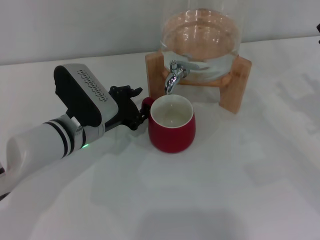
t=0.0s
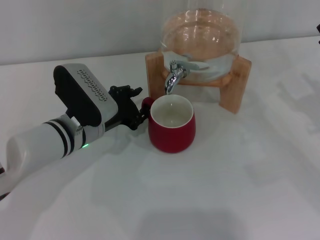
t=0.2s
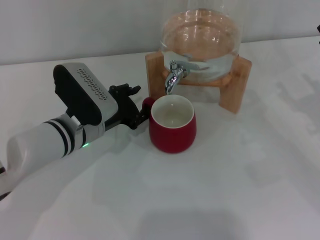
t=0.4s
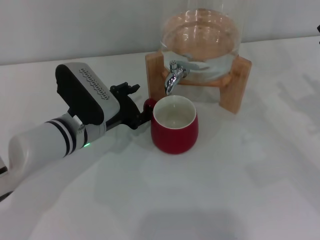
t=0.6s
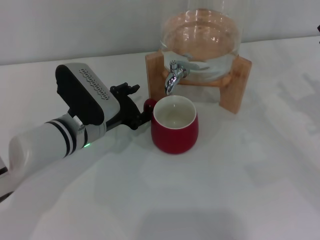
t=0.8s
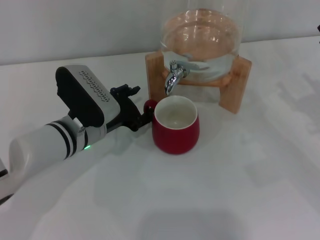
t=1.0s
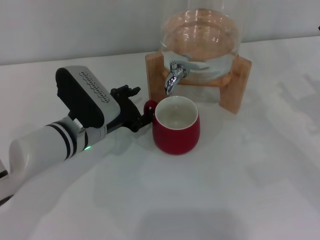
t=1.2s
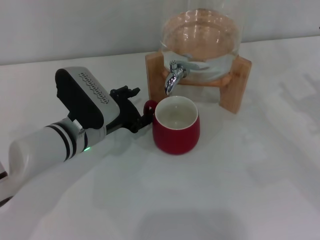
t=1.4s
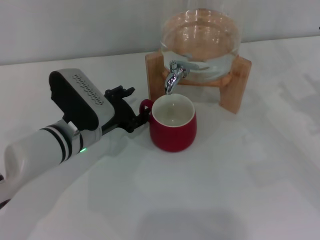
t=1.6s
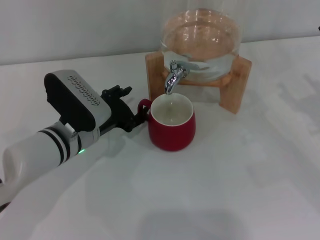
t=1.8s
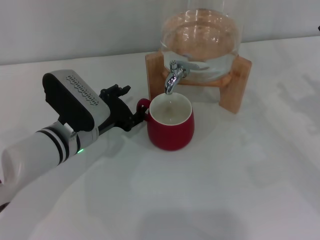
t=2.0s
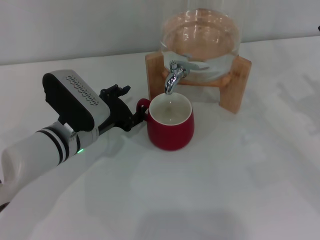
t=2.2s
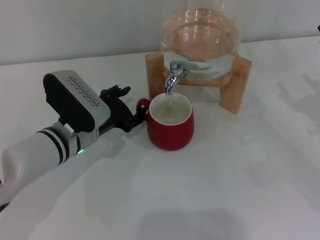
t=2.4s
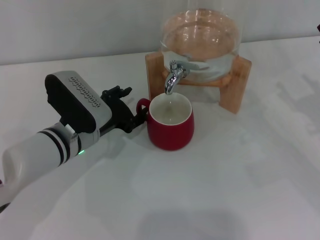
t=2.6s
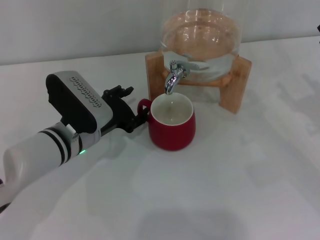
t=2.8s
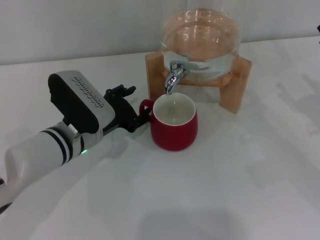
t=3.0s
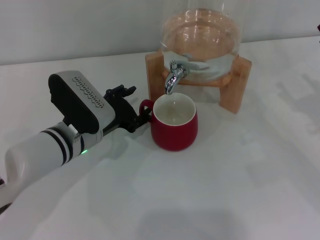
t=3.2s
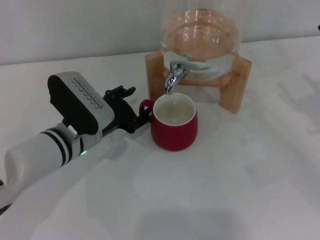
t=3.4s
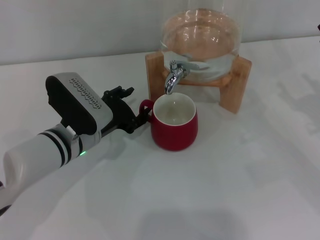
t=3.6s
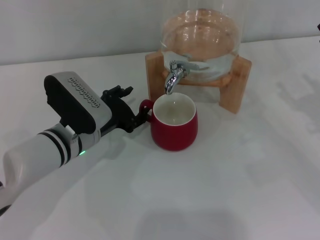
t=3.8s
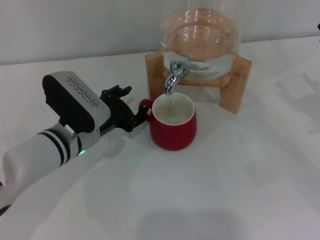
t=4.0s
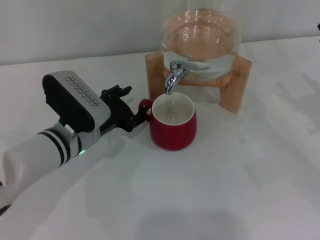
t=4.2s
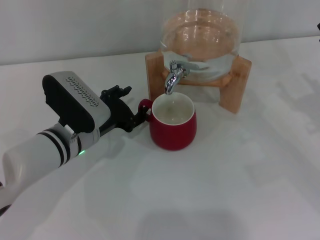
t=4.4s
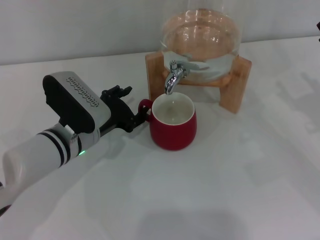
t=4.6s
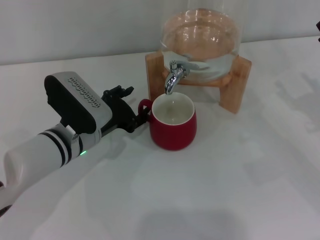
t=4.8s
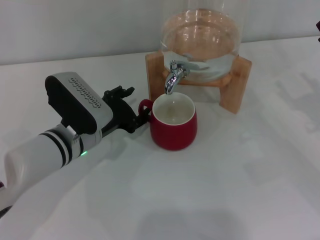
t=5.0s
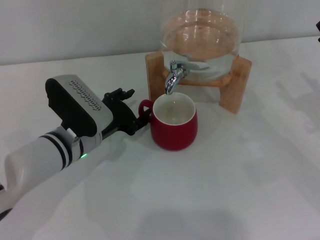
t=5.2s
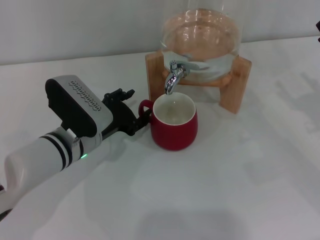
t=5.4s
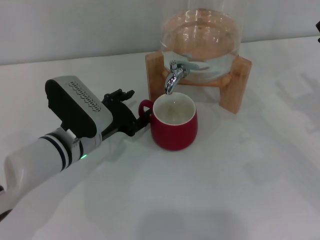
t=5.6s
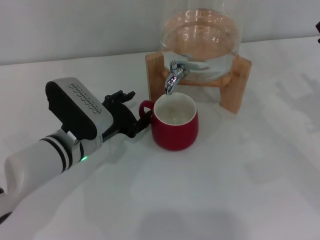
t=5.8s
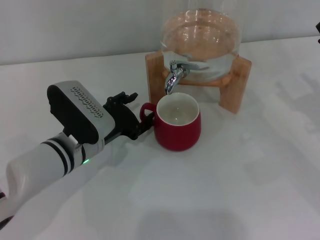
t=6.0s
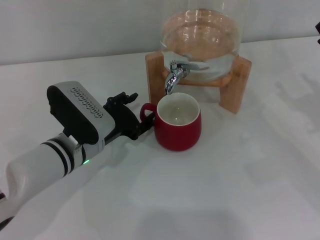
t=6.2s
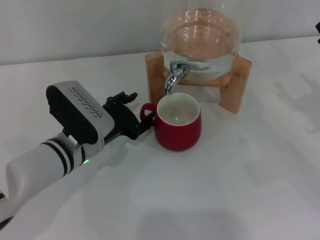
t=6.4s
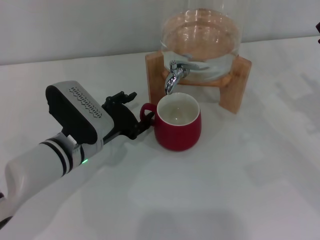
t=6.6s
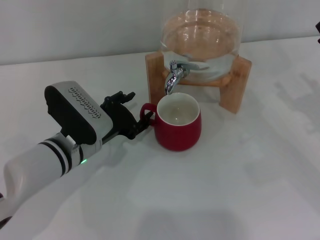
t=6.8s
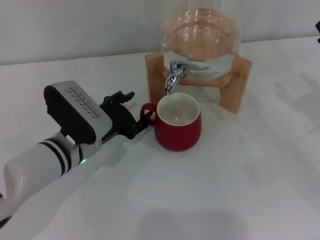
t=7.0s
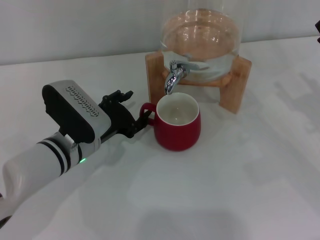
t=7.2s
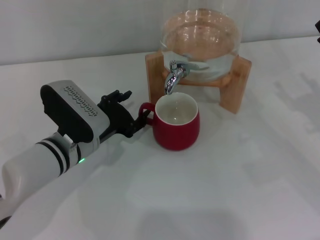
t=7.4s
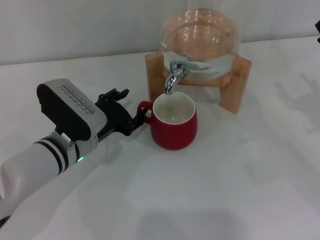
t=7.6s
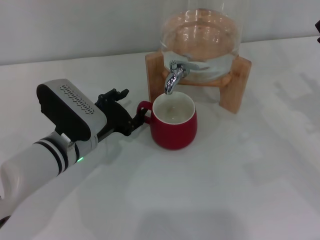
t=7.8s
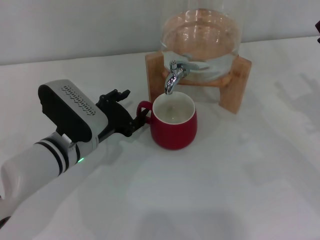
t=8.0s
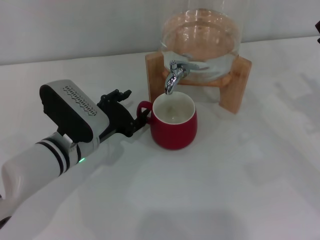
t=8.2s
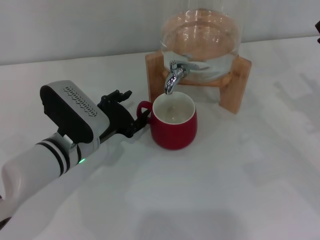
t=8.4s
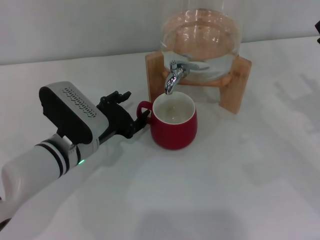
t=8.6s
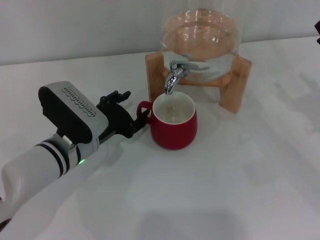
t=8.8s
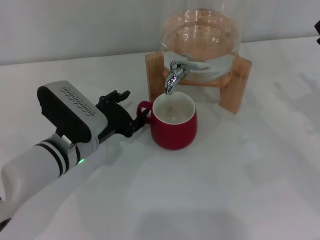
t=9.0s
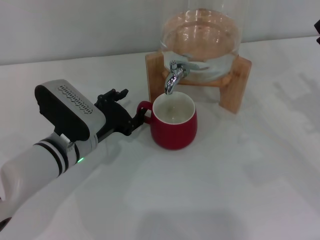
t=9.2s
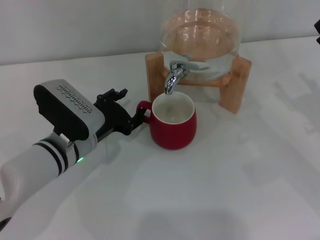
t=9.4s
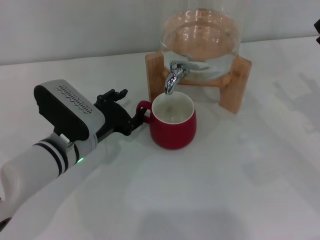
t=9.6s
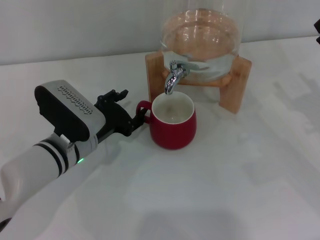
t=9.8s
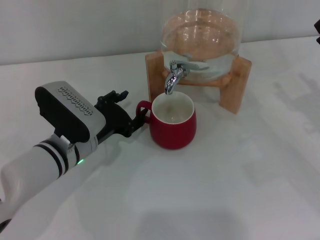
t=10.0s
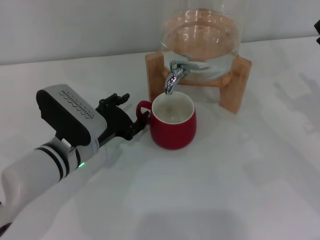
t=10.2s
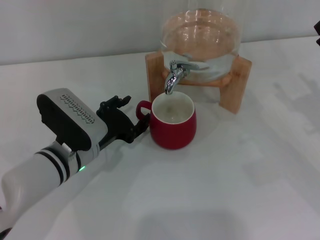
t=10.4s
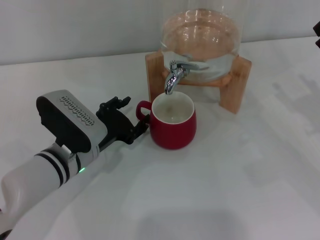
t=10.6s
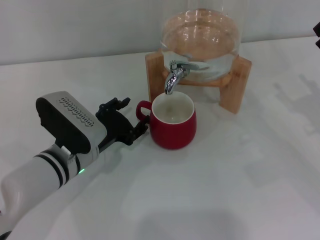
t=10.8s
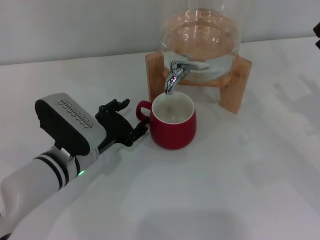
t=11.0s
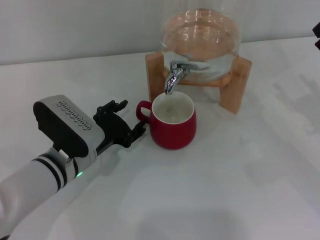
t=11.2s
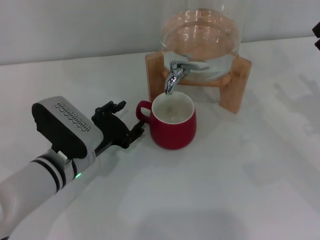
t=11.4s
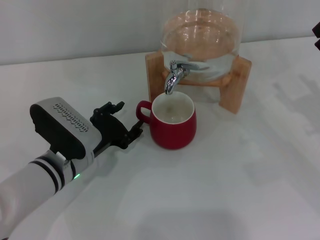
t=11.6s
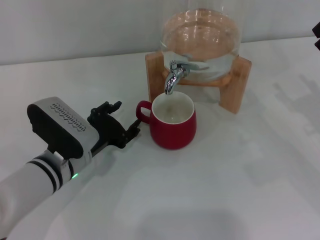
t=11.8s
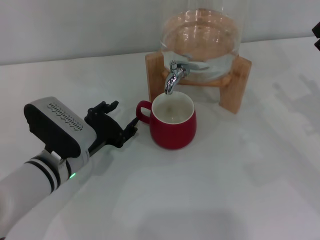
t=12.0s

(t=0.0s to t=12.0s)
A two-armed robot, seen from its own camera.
Task of the whole recording: the left gripper pick up the red cup and place it horizontally under the faucet, the right gripper turn on the faucet to fill the cup, and then turn off the faucet.
t=0.0s - t=3.0s: Both grippers stay about where they are.
t=3.0s - t=4.4s: Both grippers stay put.
t=4.4s - t=6.0s: The grippers stay close to where they were, moving slightly.
t=6.0s - t=9.0s: The two grippers keep their place.
t=9.0s - t=10.4s: Both grippers stay put.
t=10.4s - t=12.0s: The grippers stay close to where they were, moving slightly.

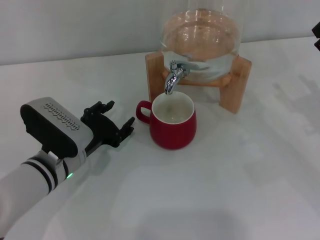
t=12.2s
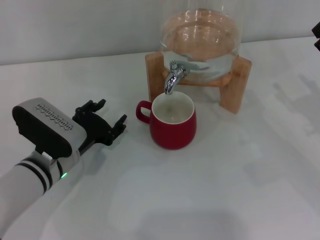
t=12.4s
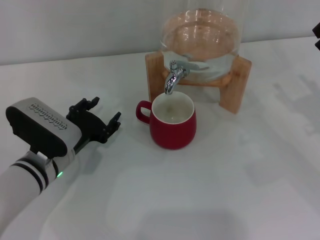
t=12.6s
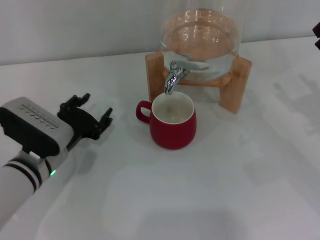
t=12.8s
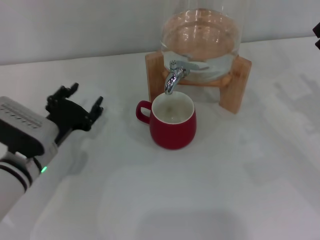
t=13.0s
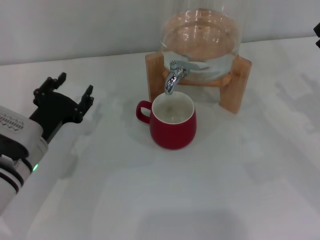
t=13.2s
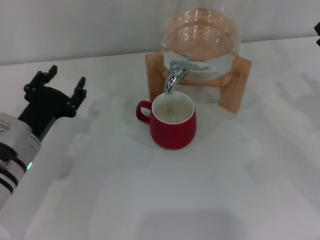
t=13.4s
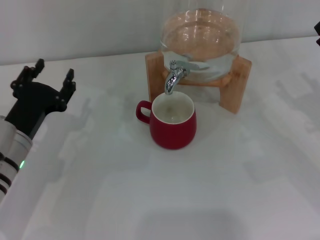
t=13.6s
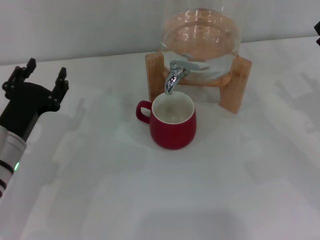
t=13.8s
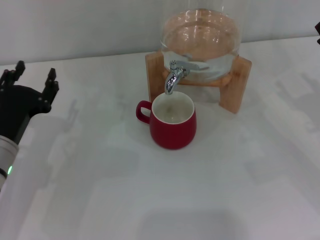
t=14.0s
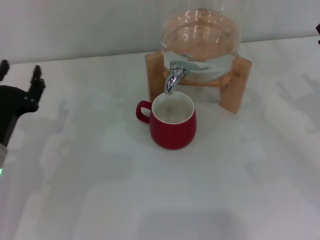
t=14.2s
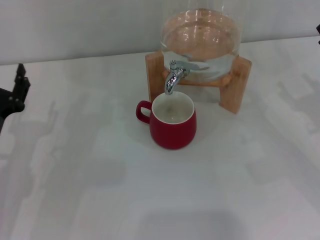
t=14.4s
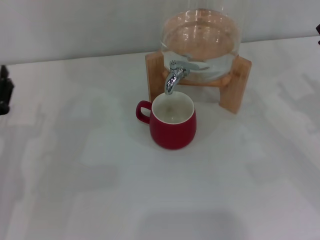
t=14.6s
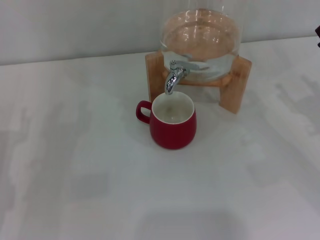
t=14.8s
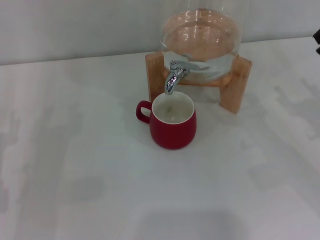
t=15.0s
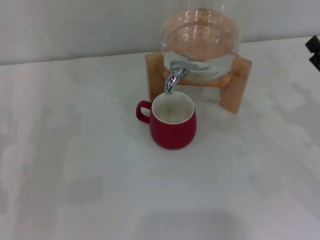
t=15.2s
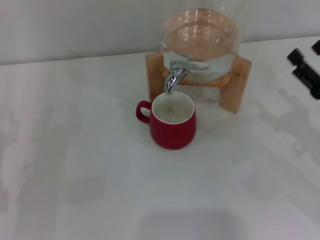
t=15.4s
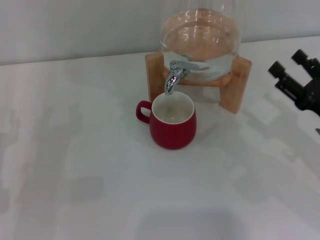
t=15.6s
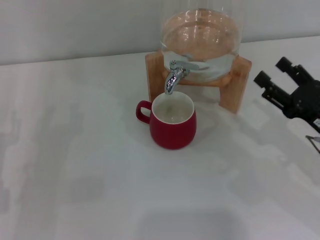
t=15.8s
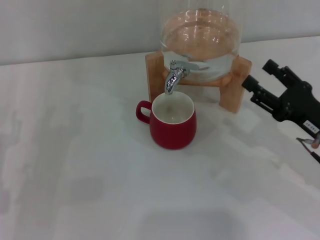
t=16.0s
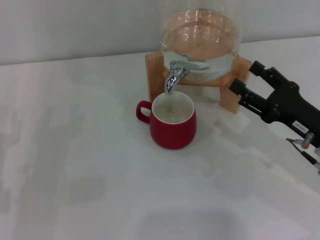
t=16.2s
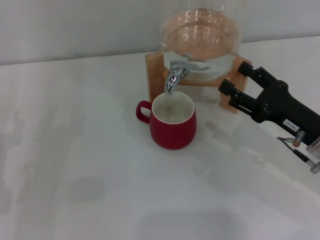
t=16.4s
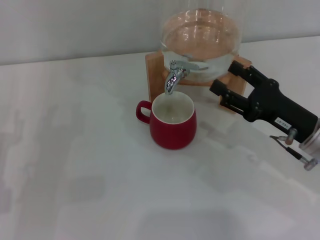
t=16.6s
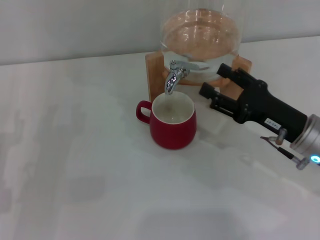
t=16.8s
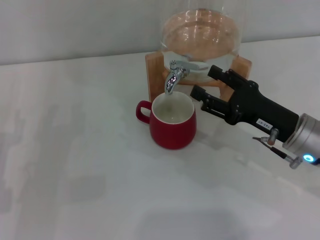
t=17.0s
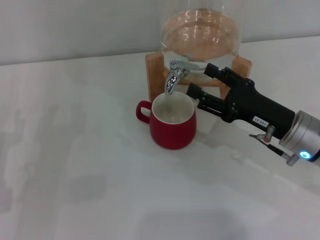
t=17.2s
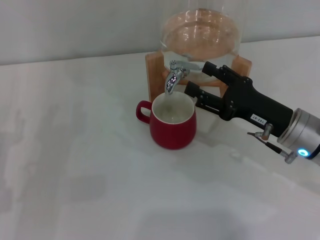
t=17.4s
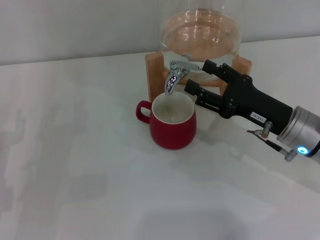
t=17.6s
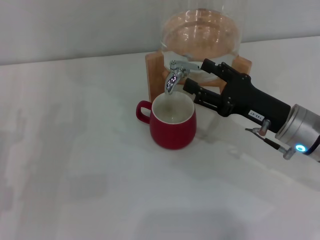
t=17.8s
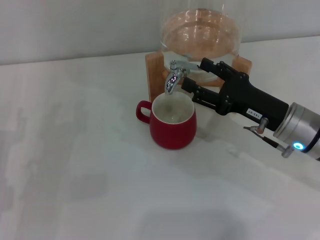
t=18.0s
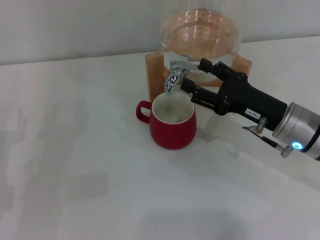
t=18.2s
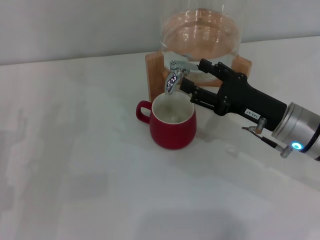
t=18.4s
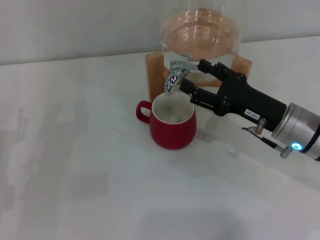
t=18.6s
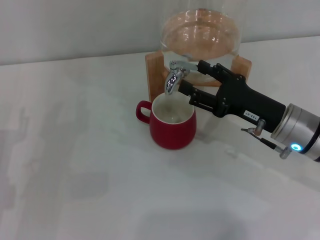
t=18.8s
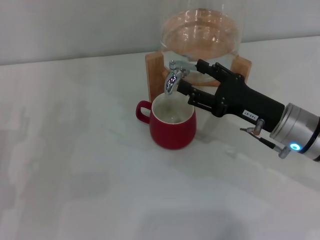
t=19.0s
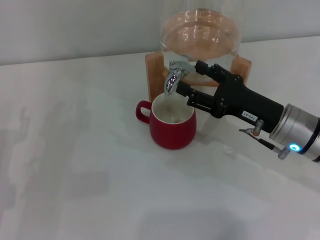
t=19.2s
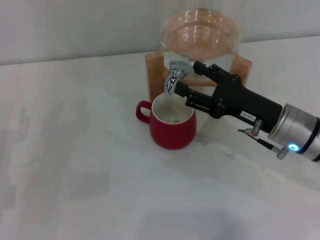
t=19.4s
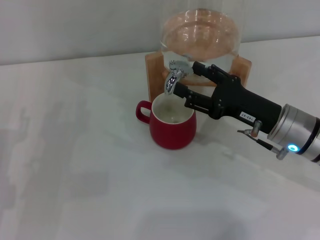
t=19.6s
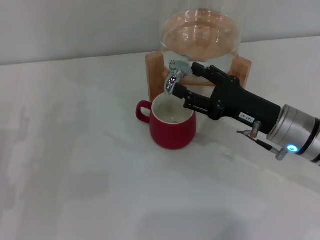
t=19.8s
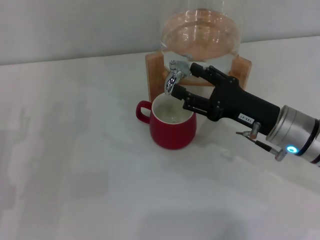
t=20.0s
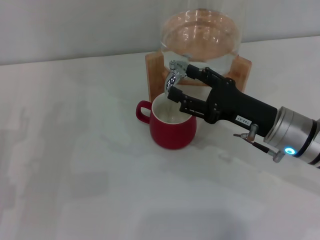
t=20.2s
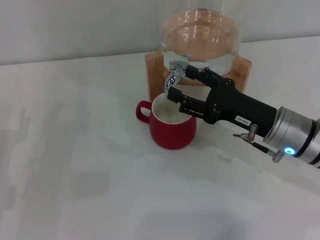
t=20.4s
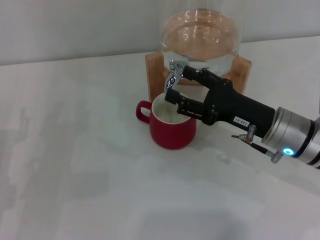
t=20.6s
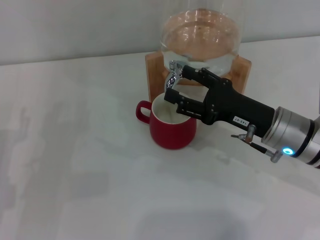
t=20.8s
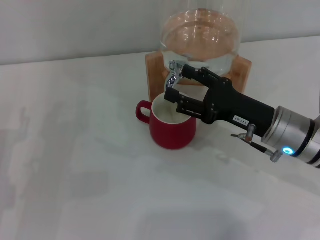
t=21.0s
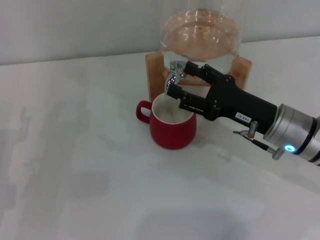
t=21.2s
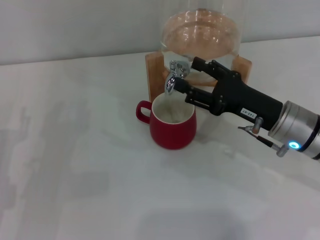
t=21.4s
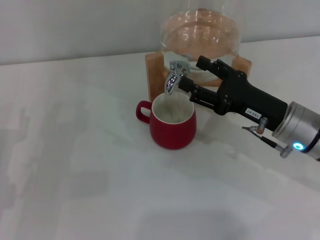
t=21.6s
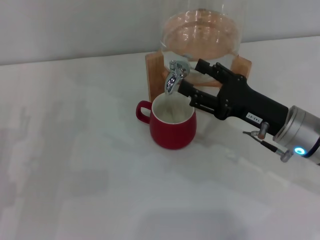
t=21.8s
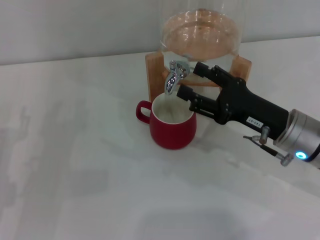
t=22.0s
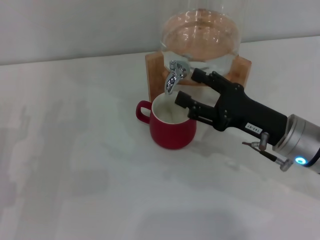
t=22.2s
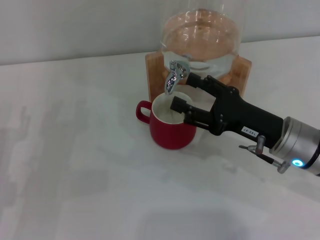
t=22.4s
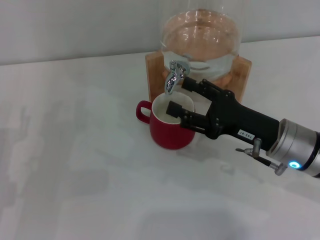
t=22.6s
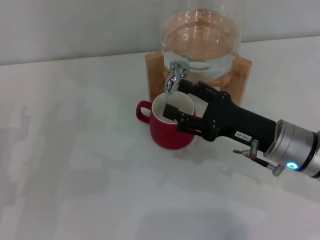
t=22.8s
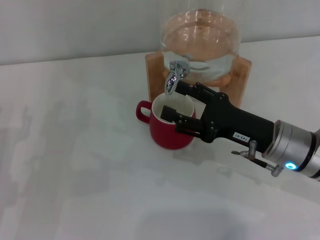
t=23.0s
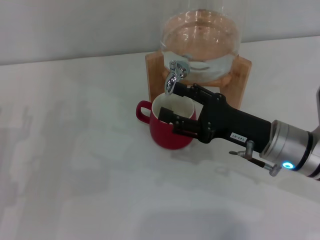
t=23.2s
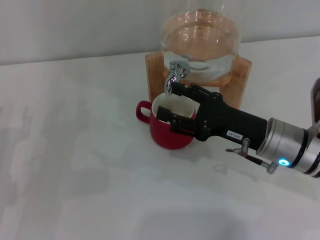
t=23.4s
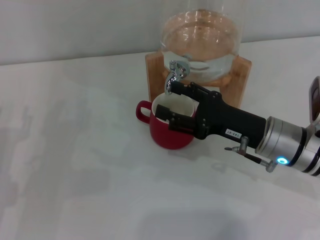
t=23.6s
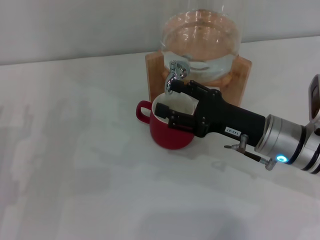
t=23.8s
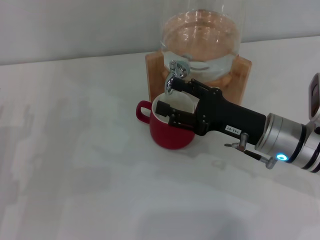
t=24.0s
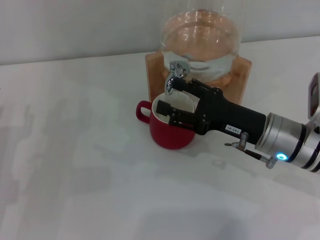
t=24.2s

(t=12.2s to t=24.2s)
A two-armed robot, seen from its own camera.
Task of the whole recording: the left gripper pick up the red cup and place it horizontally under the faucet, the right gripper turn on the faucet to fill the cup, and then turn off the faucet.
Step, t=12.2s - t=22.0s: Open the dispenser valve and fill the cup with water with the right gripper.
t=12.2s - t=13.8s: The left gripper heads to the left, covering some 5 cm.
t=13.8s - t=15.2s: The left gripper travels to the left by some 5 cm.
t=15.2s - t=16.6s: The right gripper is displaced to the left by some 10 cm.
t=16.6s - t=18.2s: The grippers stay close to where they were, moving slightly.
t=18.2s - t=19.8s: Both grippers stay about where they are.
t=19.8s - t=21.2s: Both grippers stay about where they are.
t=21.2s - t=24.2s: The grippers move only a little.
